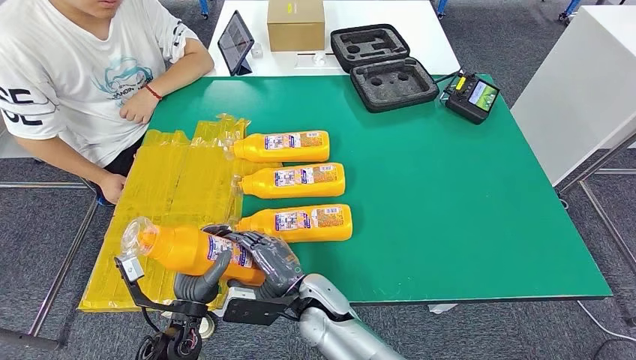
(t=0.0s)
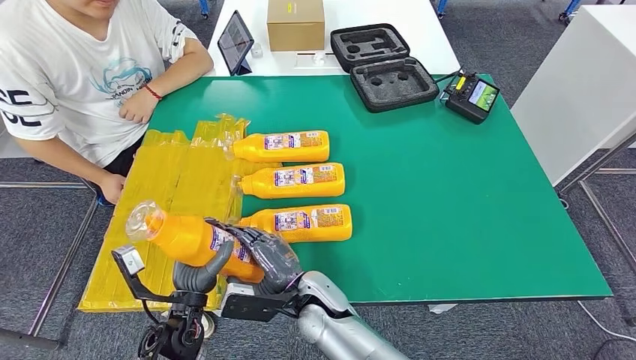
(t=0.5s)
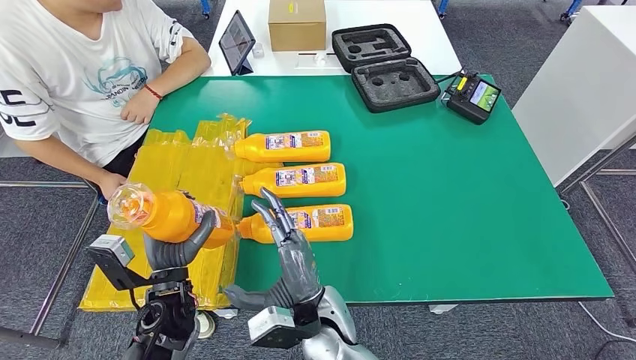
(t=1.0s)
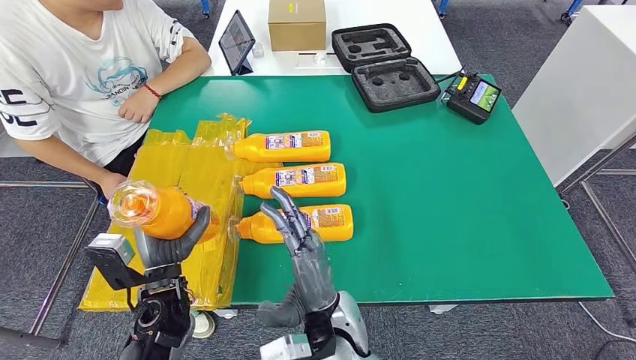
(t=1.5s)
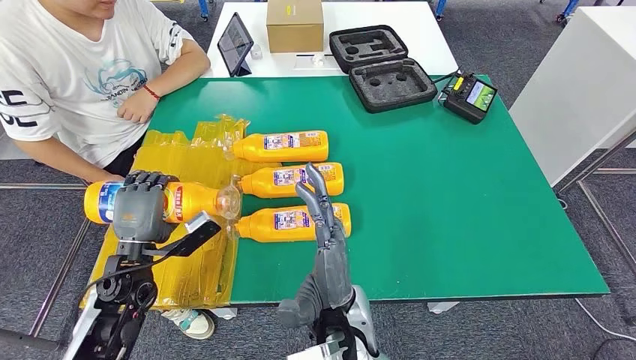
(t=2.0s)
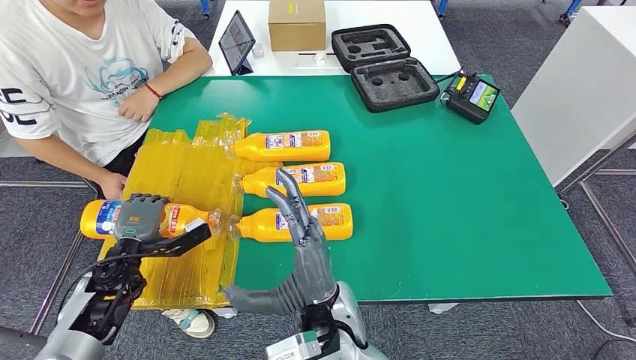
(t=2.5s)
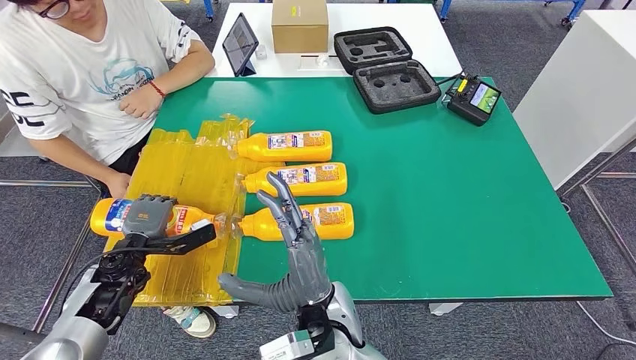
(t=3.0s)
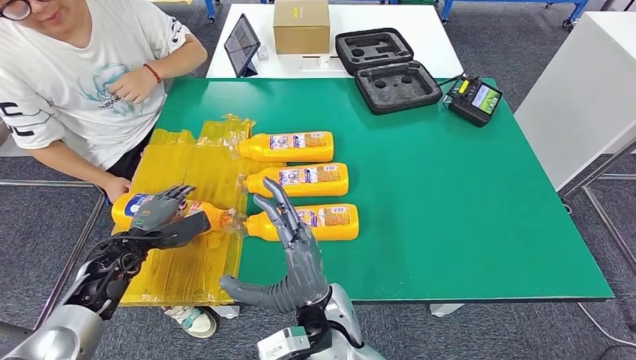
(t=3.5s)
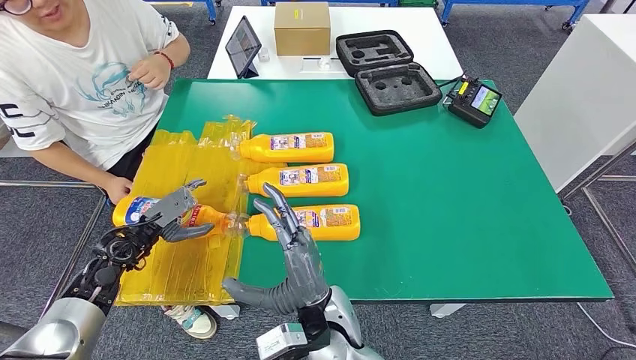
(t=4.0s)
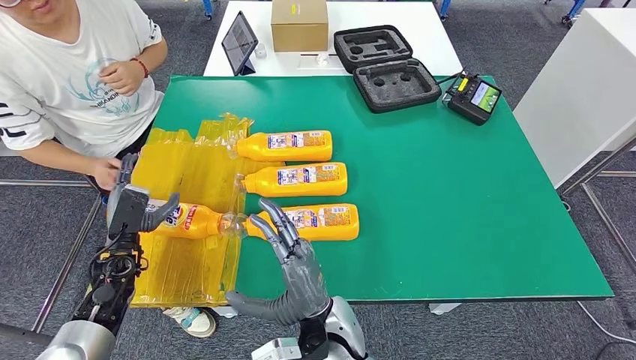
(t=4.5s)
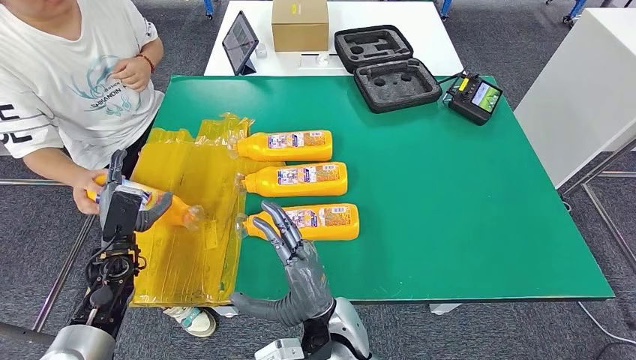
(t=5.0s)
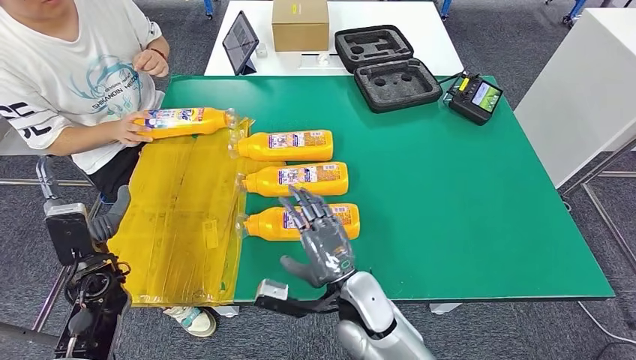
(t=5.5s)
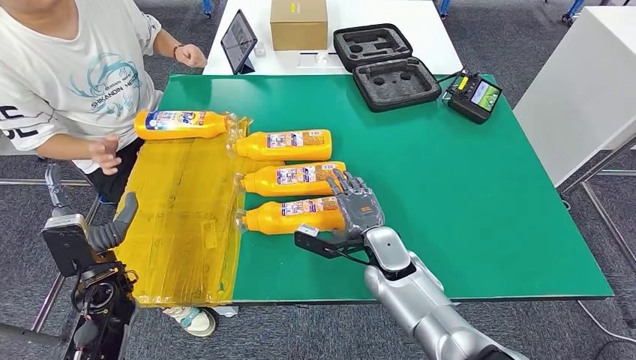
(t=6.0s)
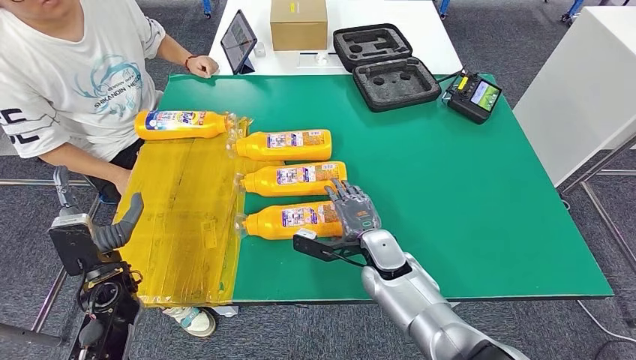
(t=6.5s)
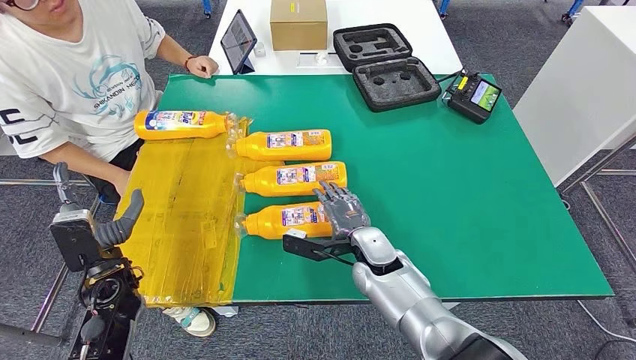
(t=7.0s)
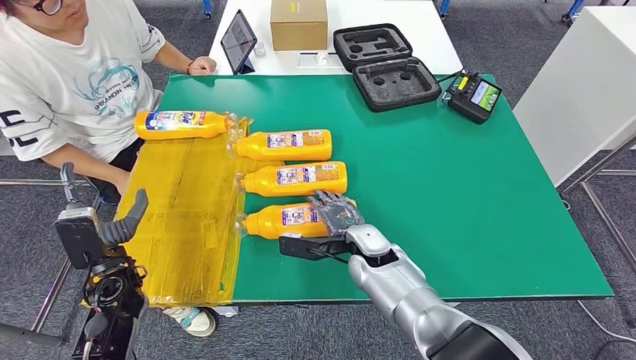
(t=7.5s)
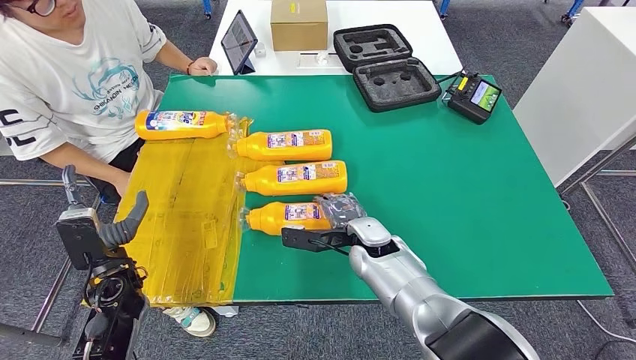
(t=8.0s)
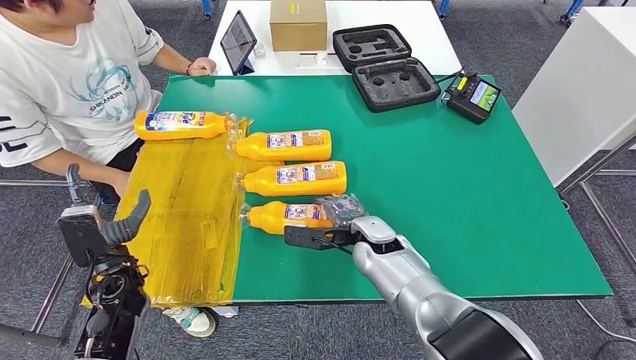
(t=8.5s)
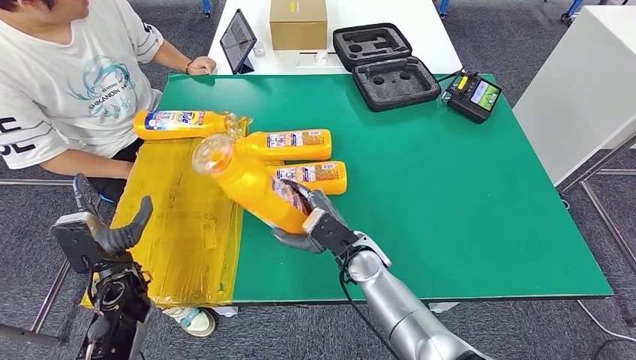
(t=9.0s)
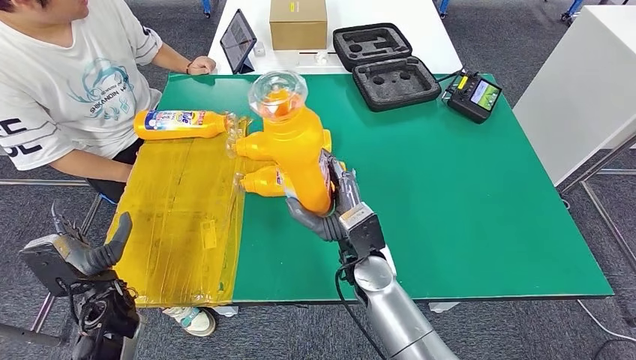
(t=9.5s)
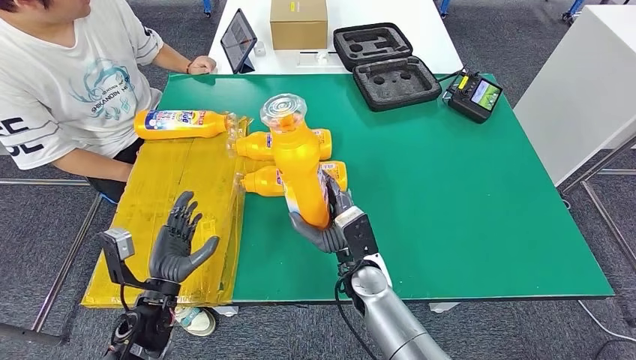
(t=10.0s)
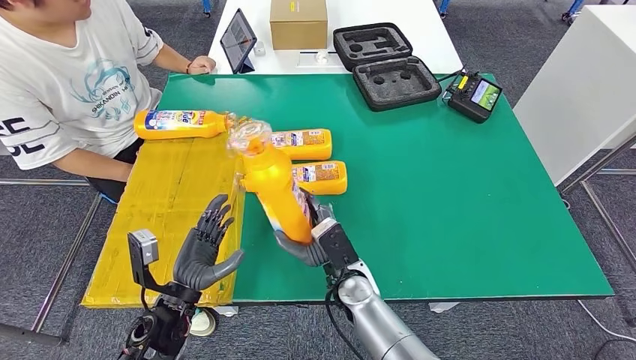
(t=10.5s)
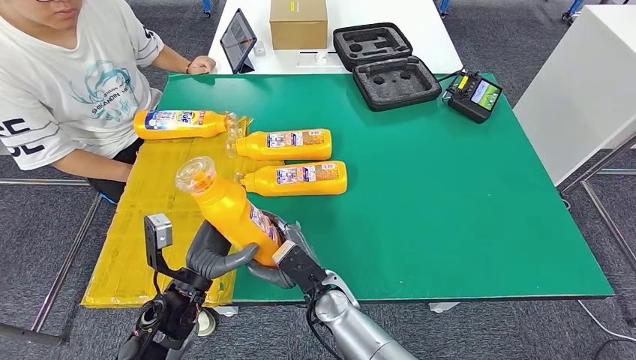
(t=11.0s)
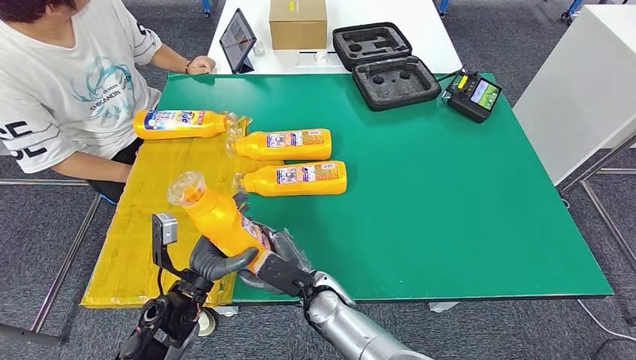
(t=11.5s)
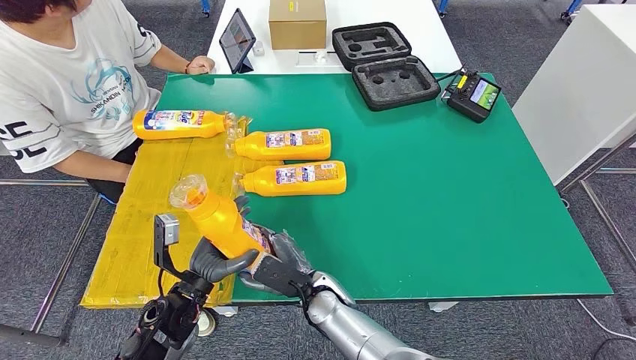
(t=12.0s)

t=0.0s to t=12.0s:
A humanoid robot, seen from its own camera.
Step, t=0.0s to t=4.0s: Flip the fast-moving consumer goods bottle to the front side.
Step, t=8.5s to t=10.5s: Pick up the fast-moving consumer goods bottle from the table.
t=10.0s to t=12.0s: The left hand moves to the right, approximately 5 cm; the right hand travels to the left by about 10 cm.

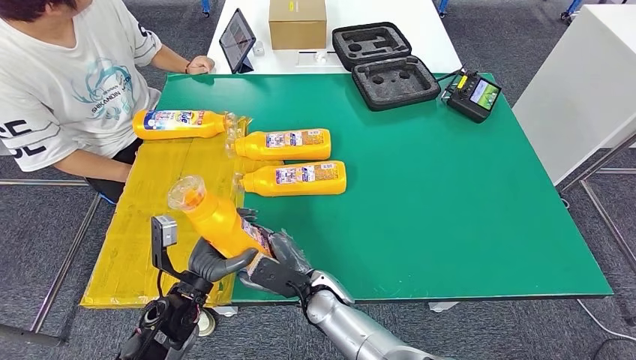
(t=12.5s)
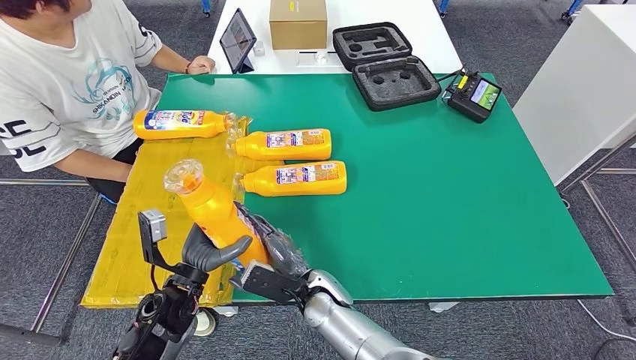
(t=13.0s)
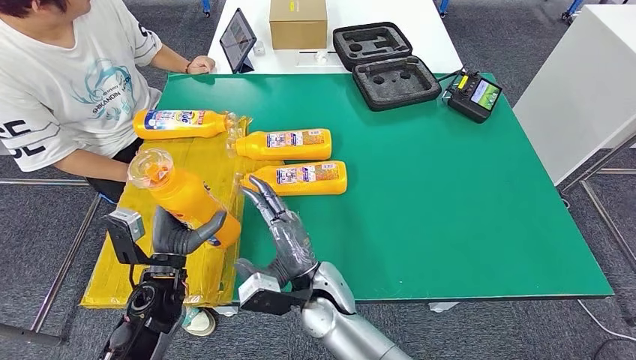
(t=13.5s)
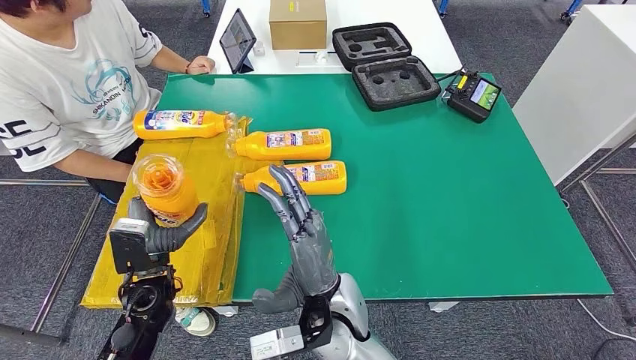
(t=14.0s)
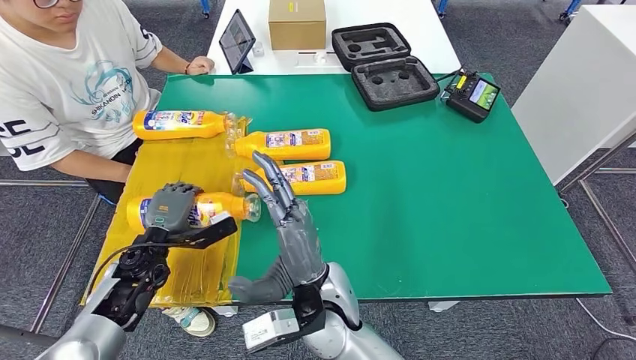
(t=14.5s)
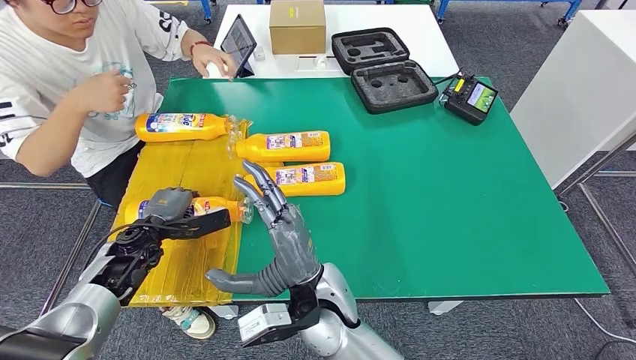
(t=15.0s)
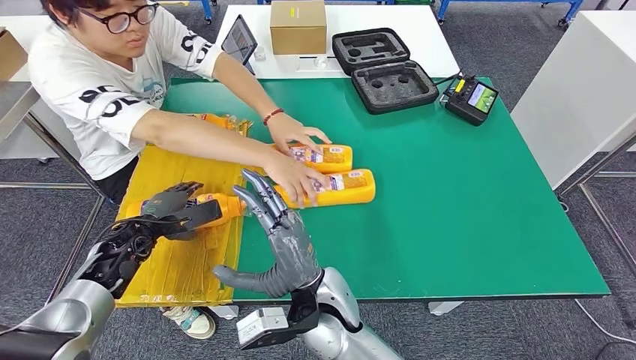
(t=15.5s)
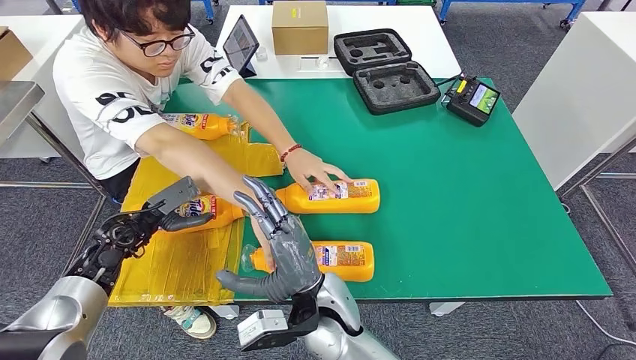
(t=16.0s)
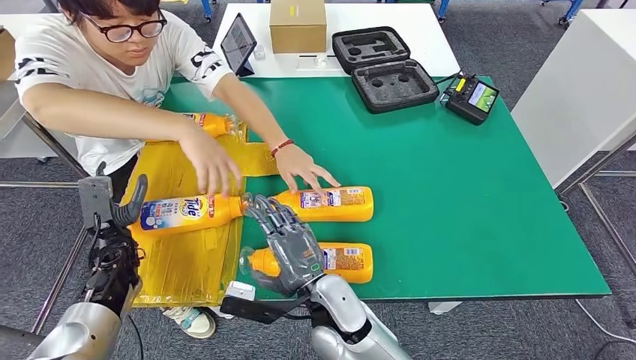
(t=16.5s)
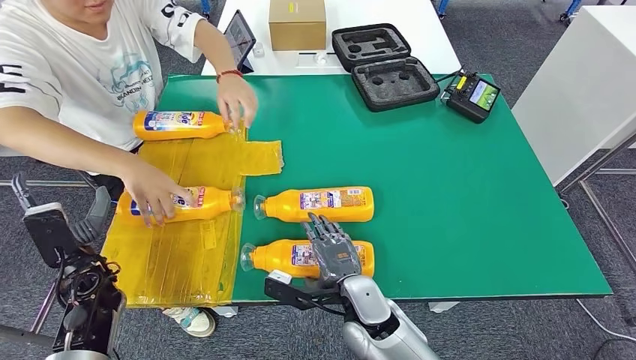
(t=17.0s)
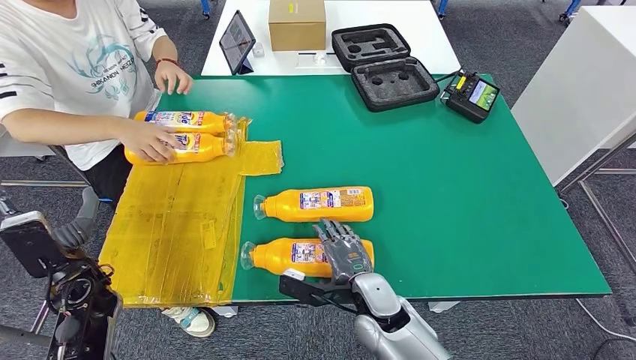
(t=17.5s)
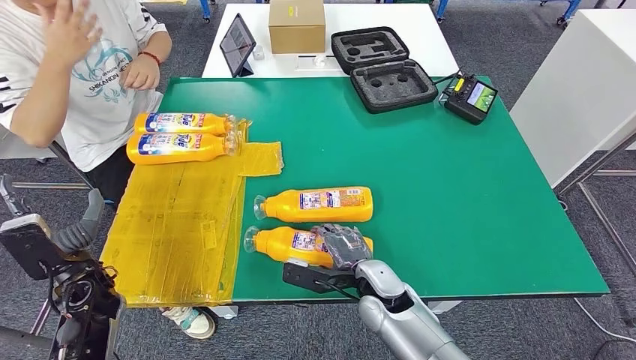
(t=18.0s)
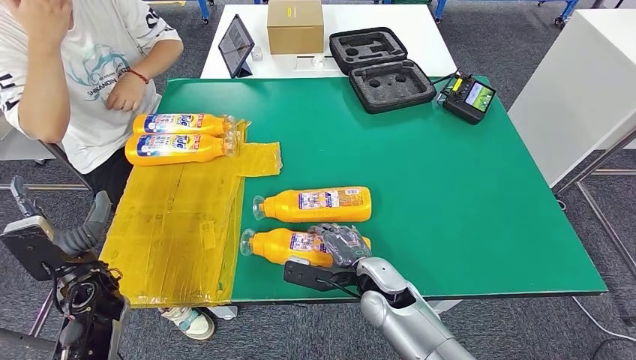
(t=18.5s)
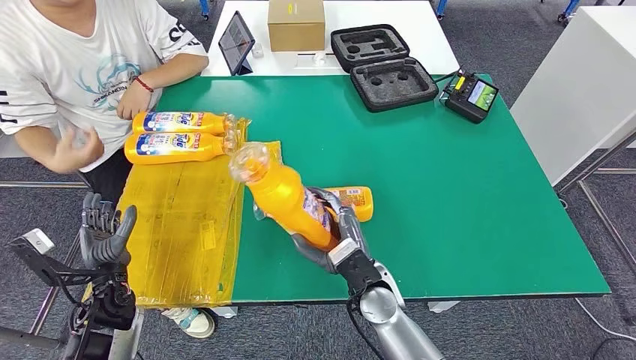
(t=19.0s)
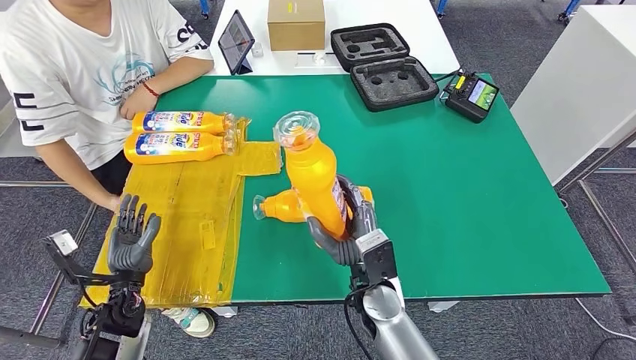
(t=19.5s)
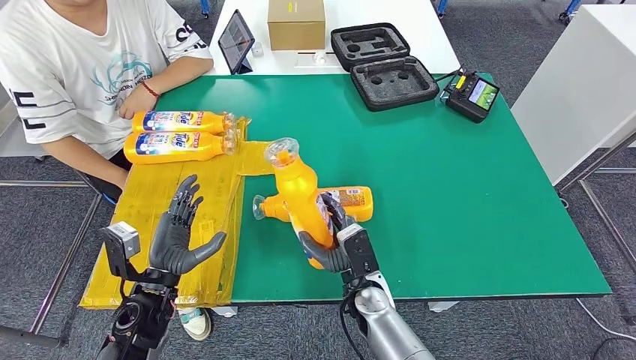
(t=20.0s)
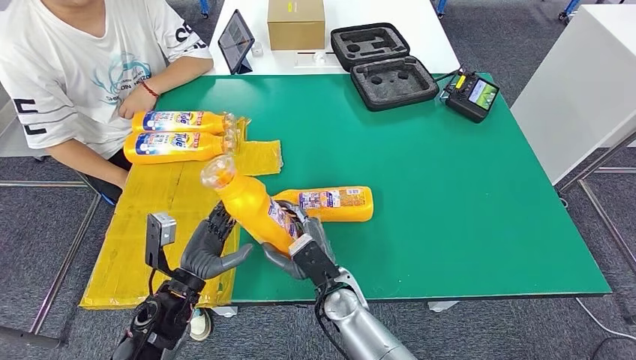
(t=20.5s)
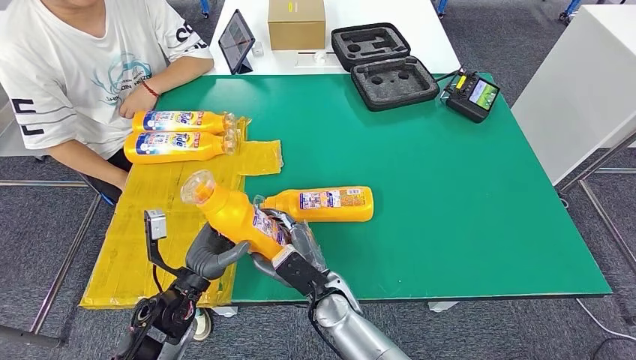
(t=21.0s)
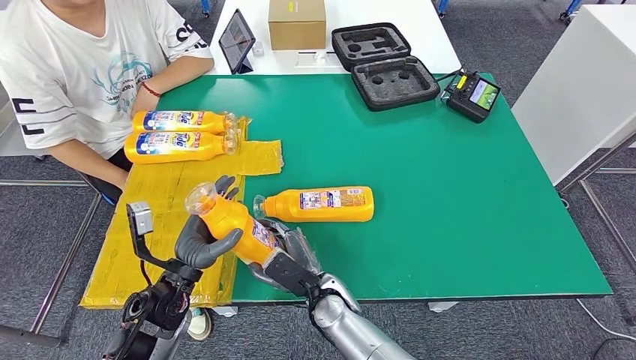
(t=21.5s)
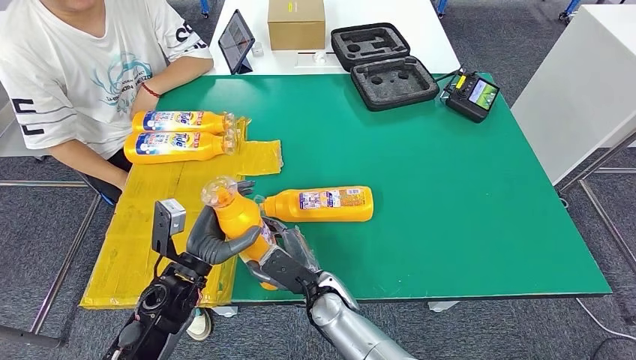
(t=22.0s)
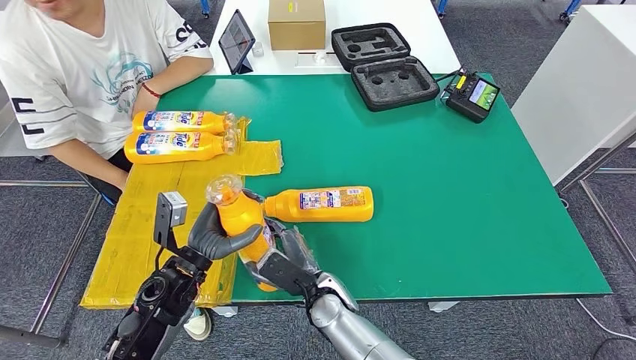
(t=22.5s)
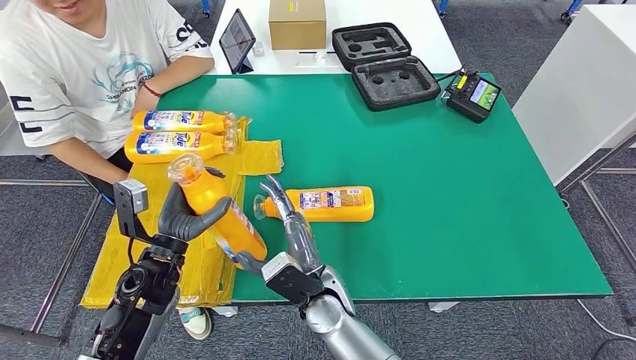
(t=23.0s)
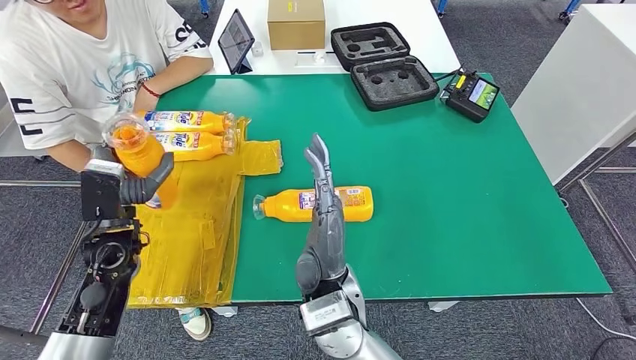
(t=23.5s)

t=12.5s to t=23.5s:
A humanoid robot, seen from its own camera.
Step, t=12.5s to t=16.0s: Flip the fast-moving consumer goods bottle to the front side.
Step, t=18.5s to t=20.0s: Pick up the fast-moving consumer goods bottle from the table.
t=12.5s to t=14.5s: The right hand is displaced upward by some 15 cm; the left hand is displaced forward and to the left by approximately 10 cm.
t=20.0s to t=21.5s: The right hand is displaced to the left by approximately 10 cm.
t=21.5s to t=23.5s: The right hand heads upward, covering about 15 cm; the left hand is displaced to the left, upward and forward by roughly 10 cm.
